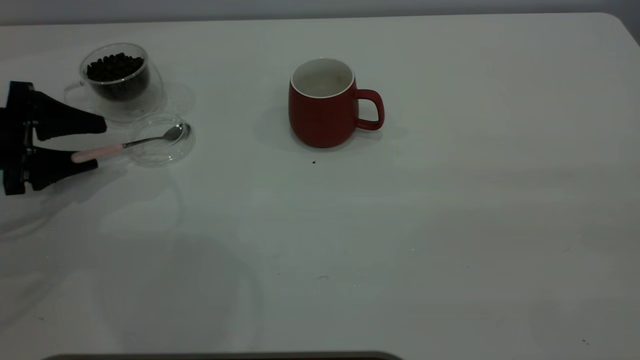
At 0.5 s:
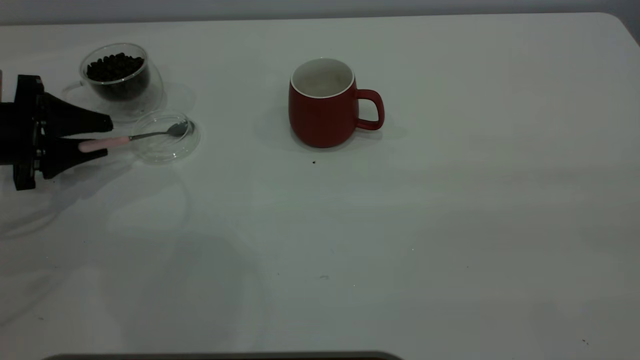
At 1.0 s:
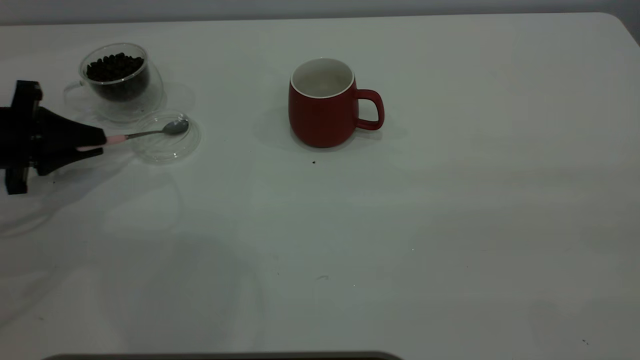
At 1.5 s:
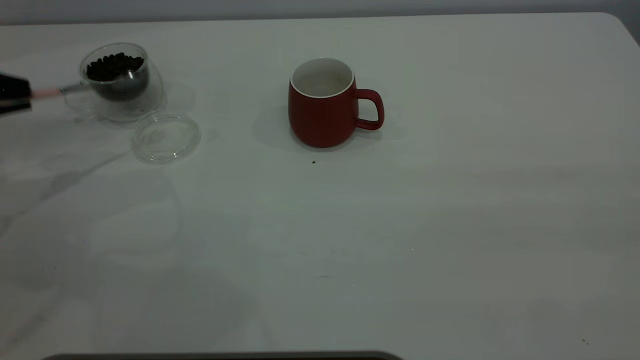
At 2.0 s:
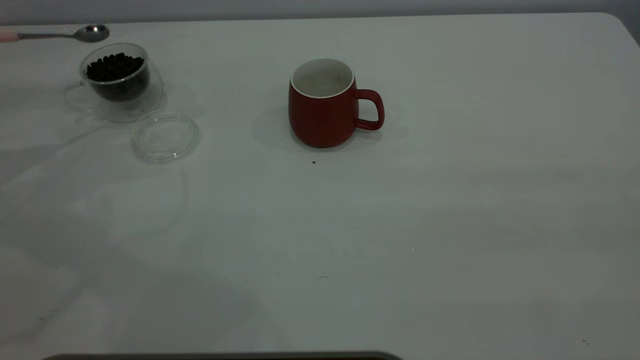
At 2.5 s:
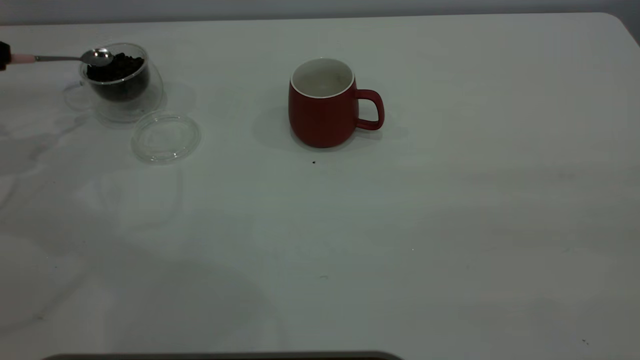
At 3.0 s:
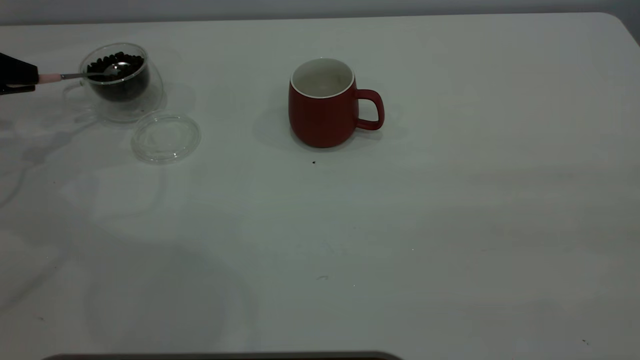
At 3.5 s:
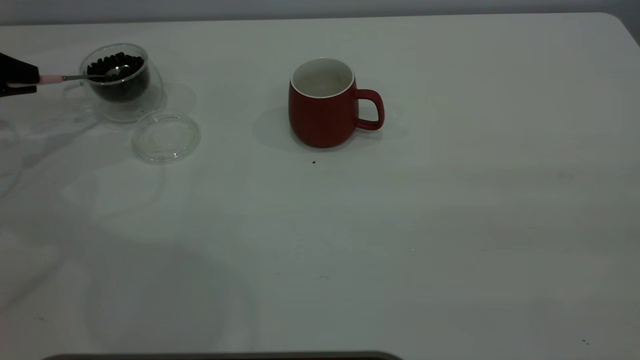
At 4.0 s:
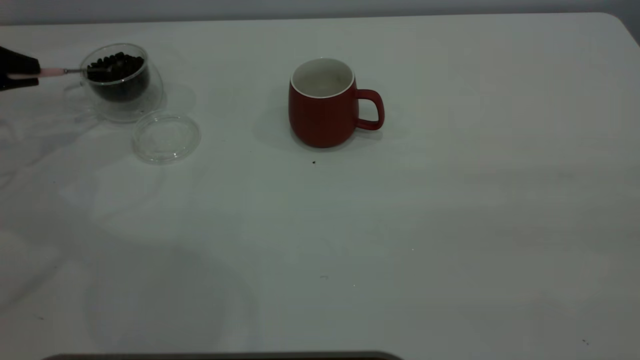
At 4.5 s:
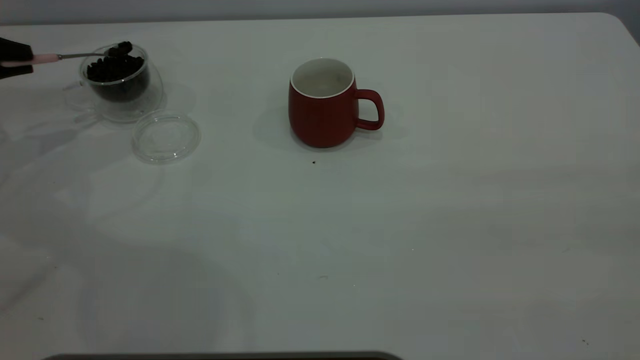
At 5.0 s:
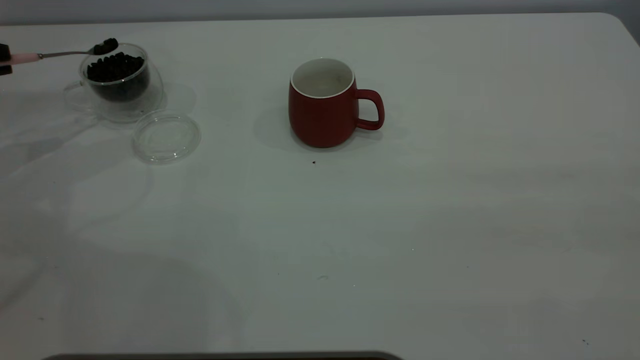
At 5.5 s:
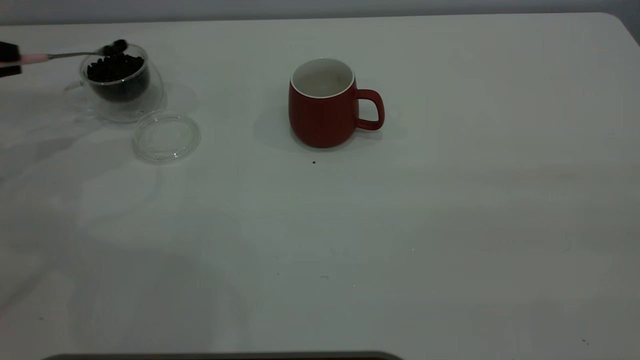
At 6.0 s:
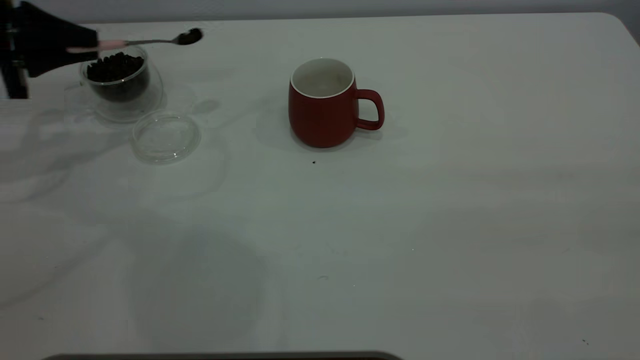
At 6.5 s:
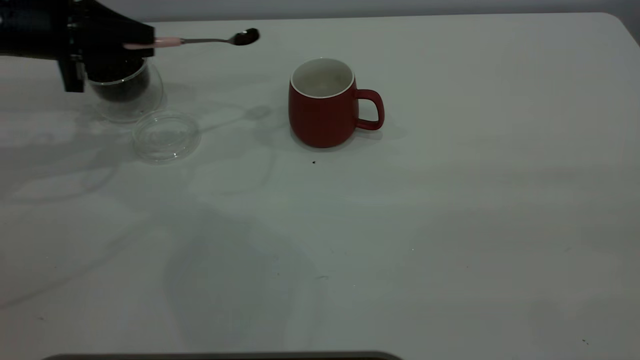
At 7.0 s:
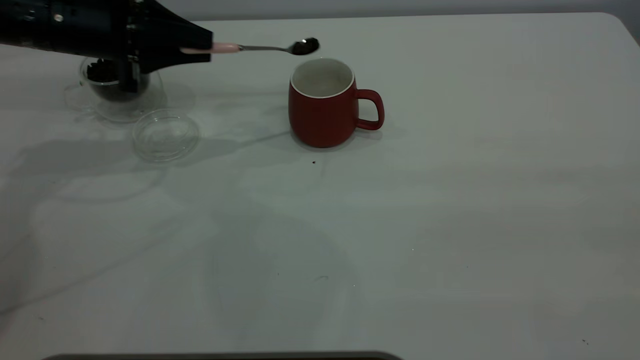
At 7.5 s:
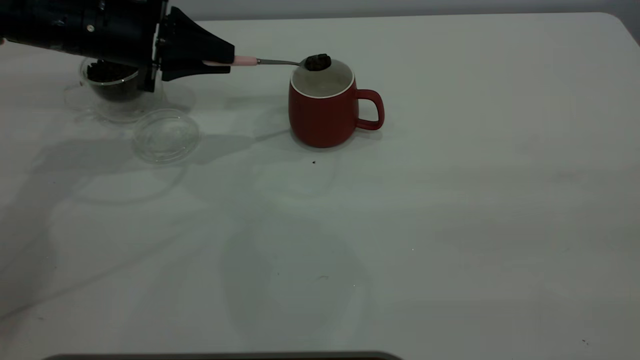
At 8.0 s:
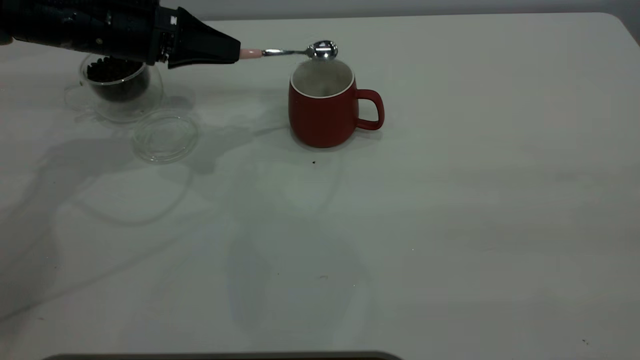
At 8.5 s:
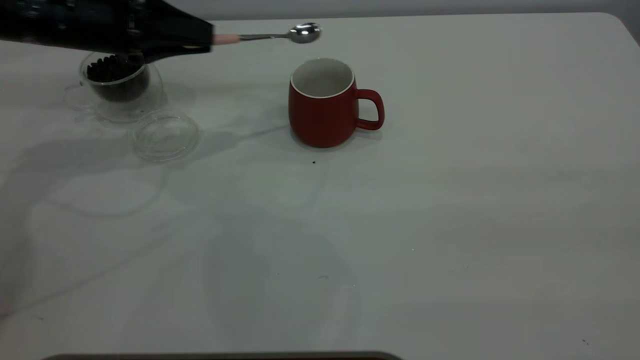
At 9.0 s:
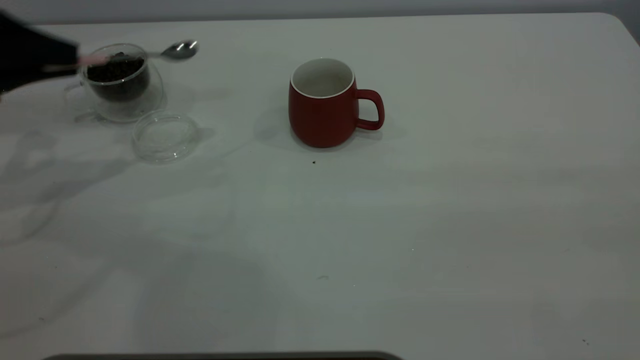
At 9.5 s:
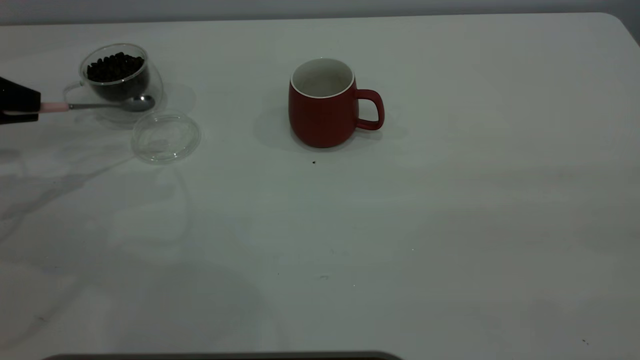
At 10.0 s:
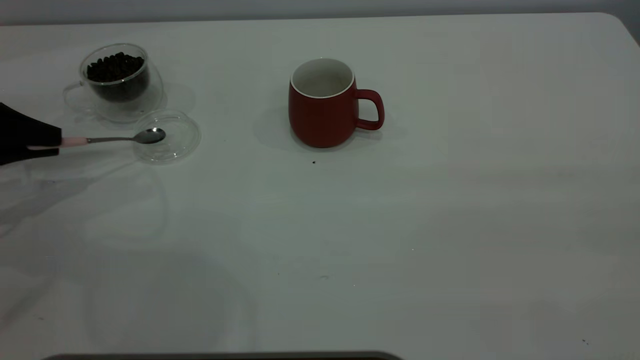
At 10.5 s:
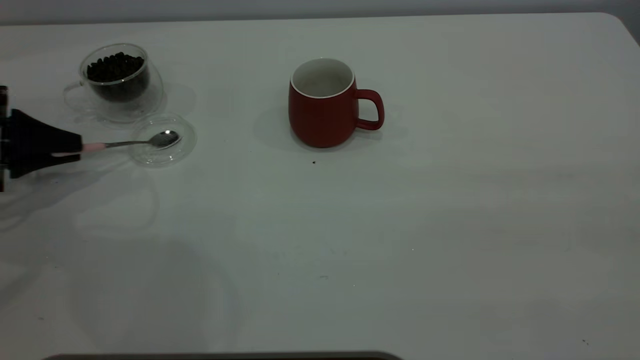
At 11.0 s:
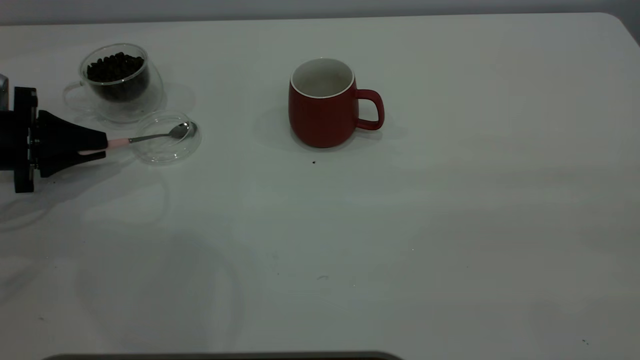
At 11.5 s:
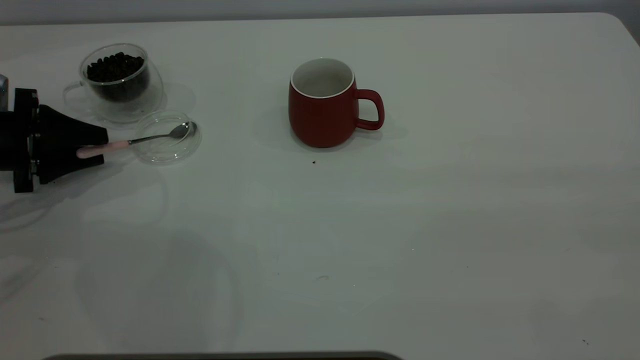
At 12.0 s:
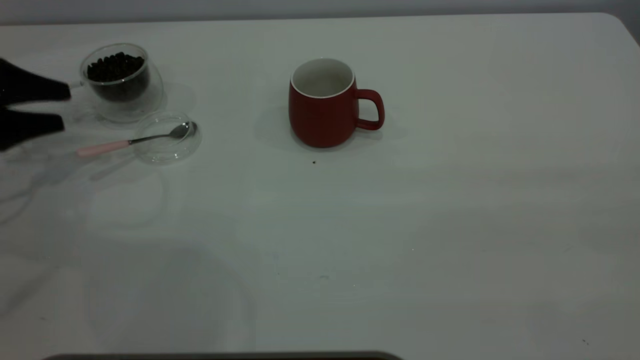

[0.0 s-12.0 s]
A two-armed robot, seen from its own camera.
Task of the whole recording: the right gripper place the red cup in the center of the table, the left gripper take the pink spoon from the cup lid and scoop out the coffee beans from the coffee cup and put them into the red cup, the left gripper put the spoon back into the cup lid.
Step, 2.0 to 8.0 s: Scoop a spoonful of beans into the cup.
0.0 to 2.0 s: The left gripper is displaced upward and to the left by about 15 cm, and closes up.
2.0 to 4.0 s: The left gripper moves downward, roughly 5 cm.
4.0 to 6.0 s: The left gripper goes about 5 cm to the right.
6.0 to 8.0 s: The left gripper heads to the right, covering about 15 cm.
8.0 to 10.0 s: The left gripper moves to the left and backward, some 20 cm.
10.0 to 12.0 s: The left gripper opens up.

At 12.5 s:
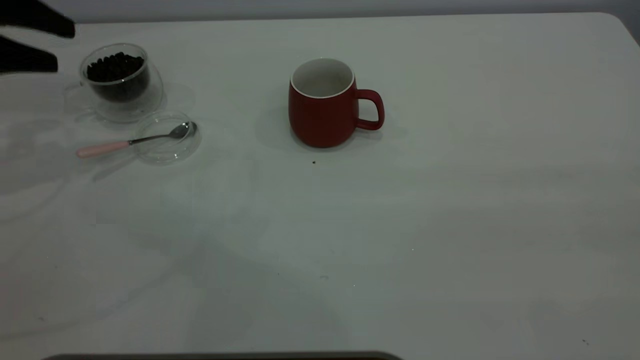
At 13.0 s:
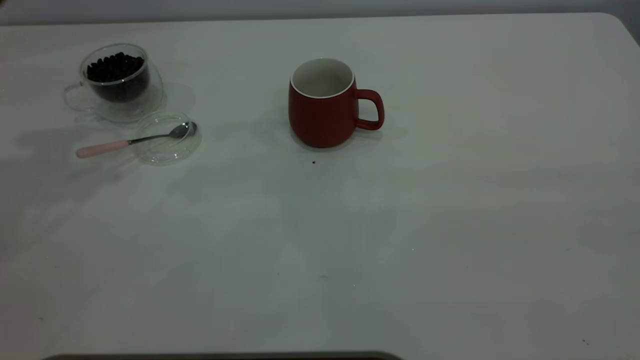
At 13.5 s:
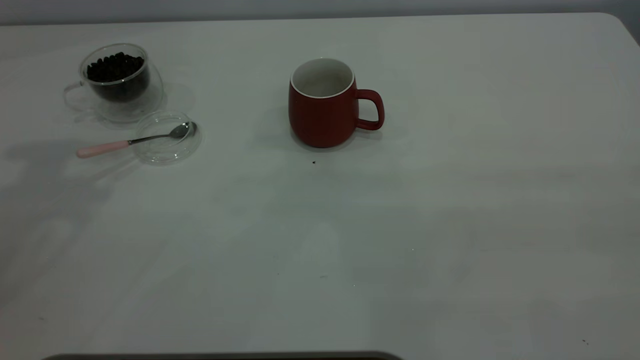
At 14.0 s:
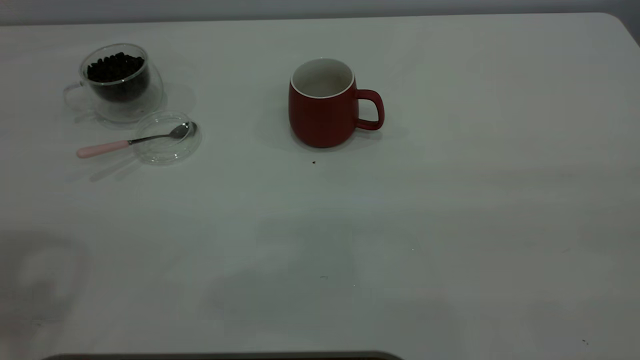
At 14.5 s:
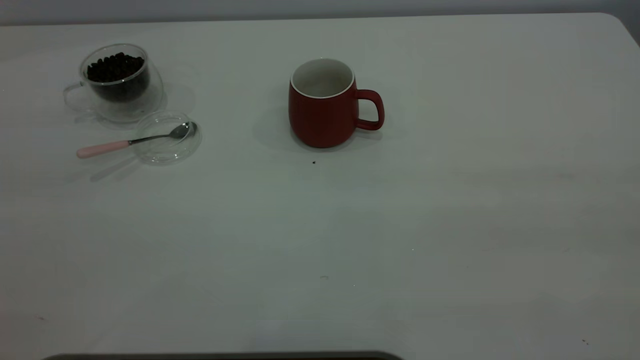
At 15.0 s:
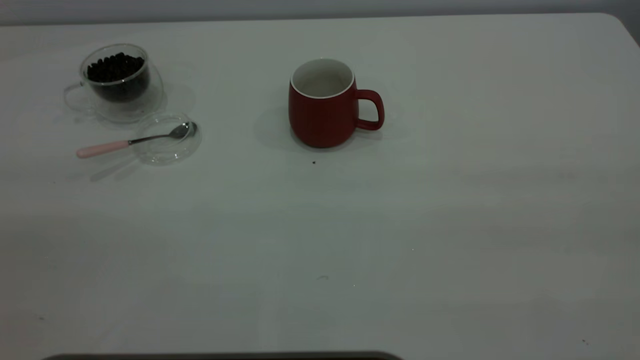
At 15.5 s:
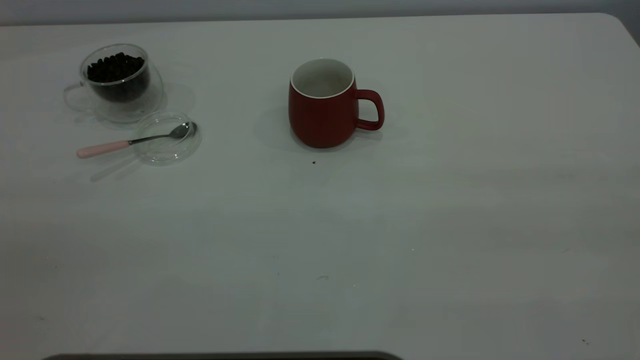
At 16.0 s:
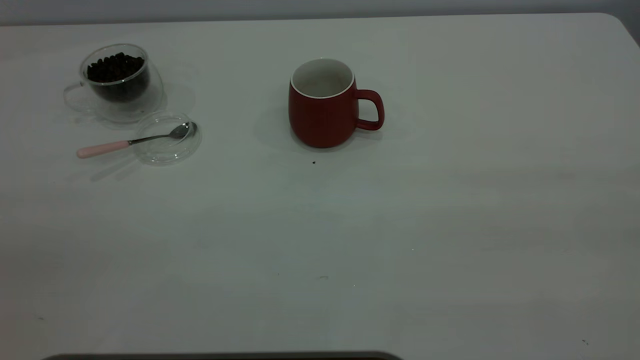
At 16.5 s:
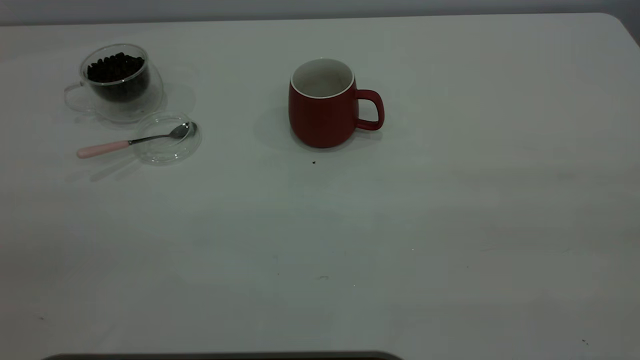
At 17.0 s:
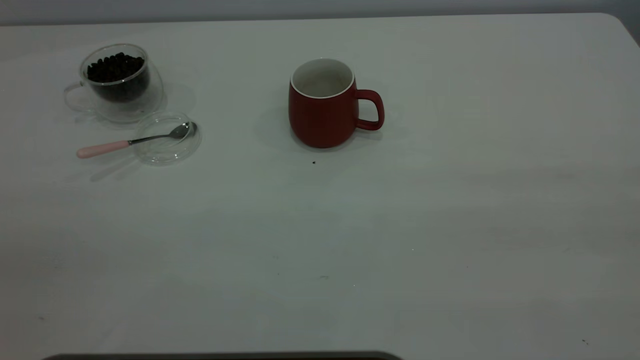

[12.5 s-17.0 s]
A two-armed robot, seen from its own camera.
Task of the whole recording: the right gripper place the red cup in the center of the table, the left gripper take the pink spoon from the cup lid and scoop out the coffee beans from the coffee cup and put them into the red cup, the left gripper put the spoon back into the cup lid.
12.5 to 14.5 s: The left gripper goes about 35 cm backward and upward.
